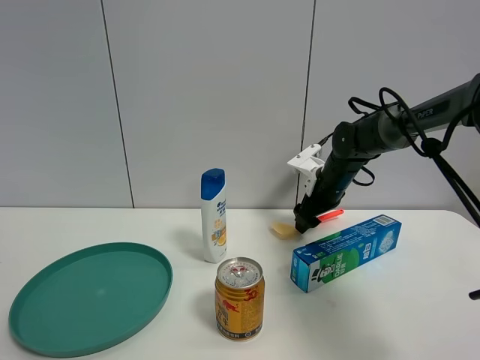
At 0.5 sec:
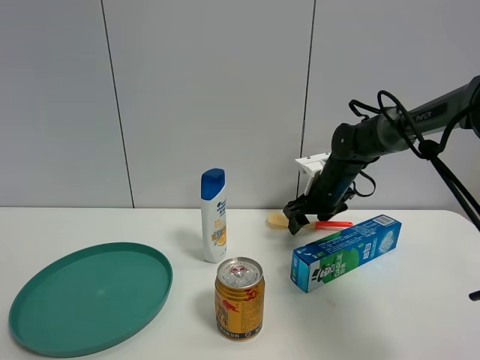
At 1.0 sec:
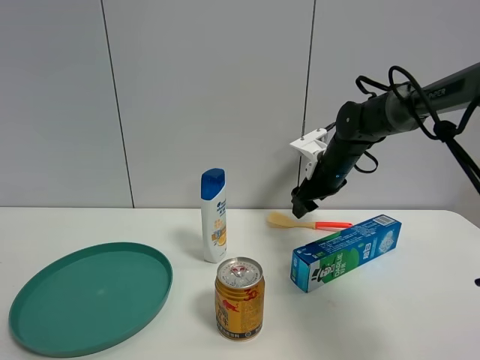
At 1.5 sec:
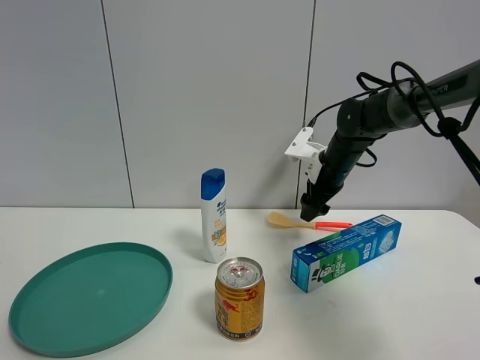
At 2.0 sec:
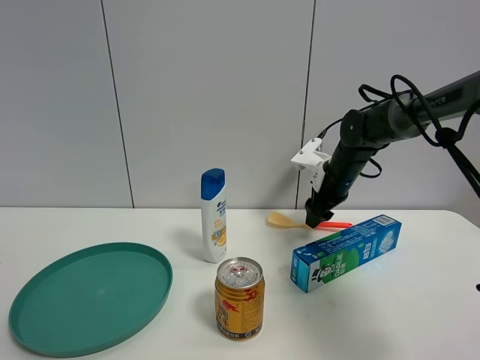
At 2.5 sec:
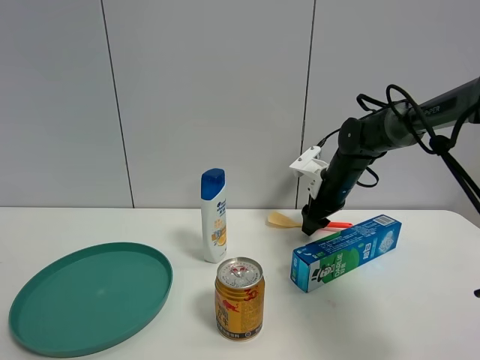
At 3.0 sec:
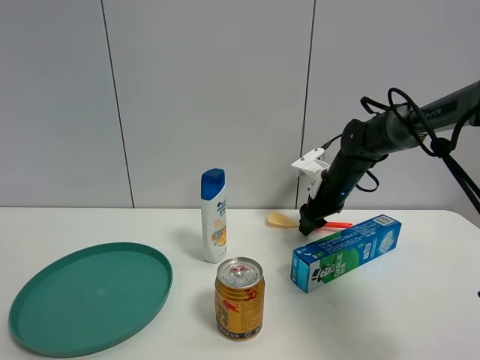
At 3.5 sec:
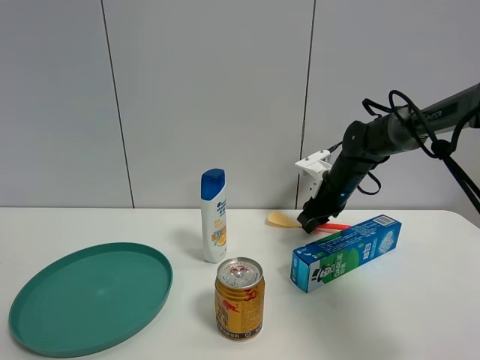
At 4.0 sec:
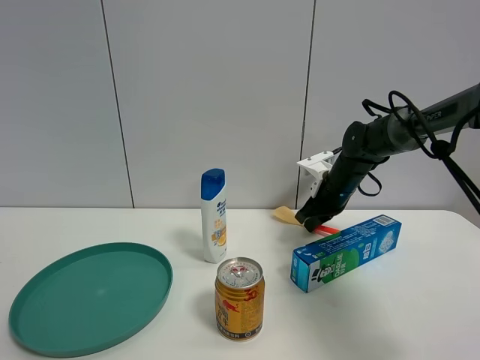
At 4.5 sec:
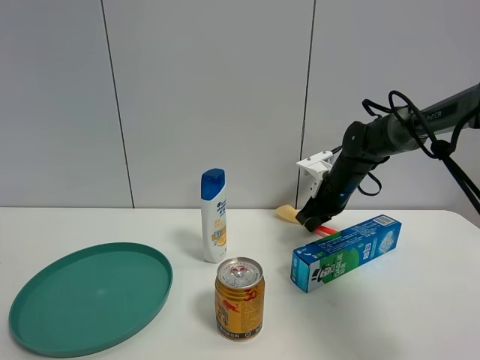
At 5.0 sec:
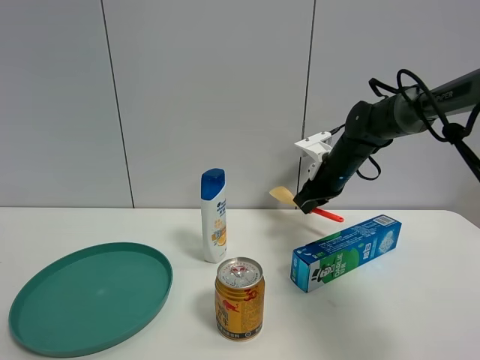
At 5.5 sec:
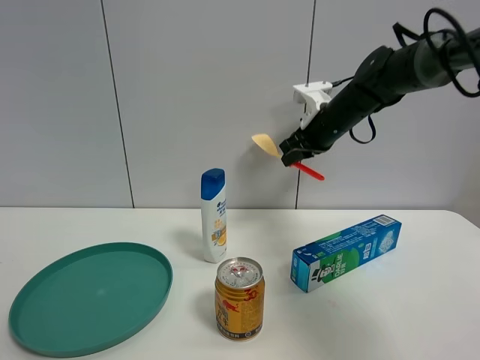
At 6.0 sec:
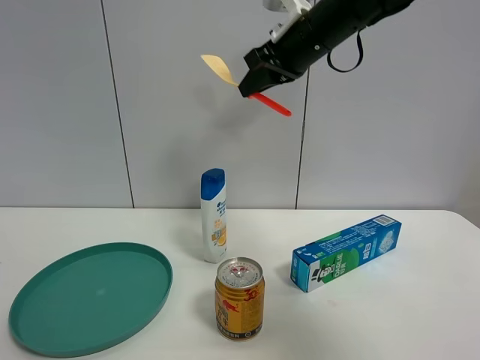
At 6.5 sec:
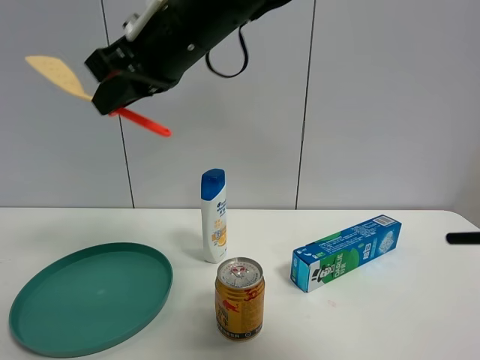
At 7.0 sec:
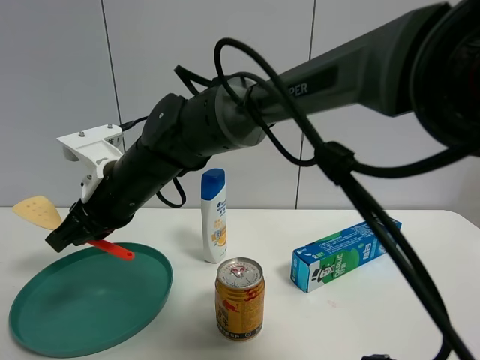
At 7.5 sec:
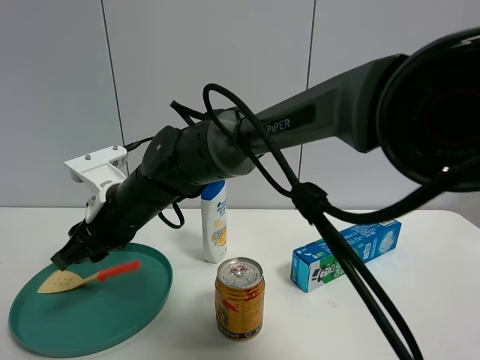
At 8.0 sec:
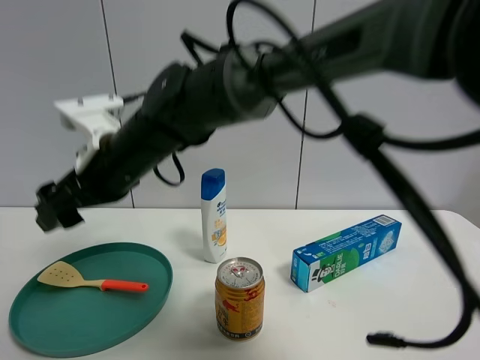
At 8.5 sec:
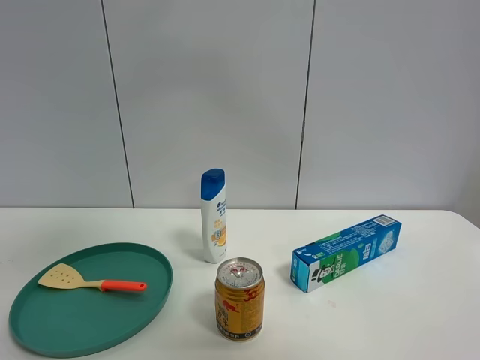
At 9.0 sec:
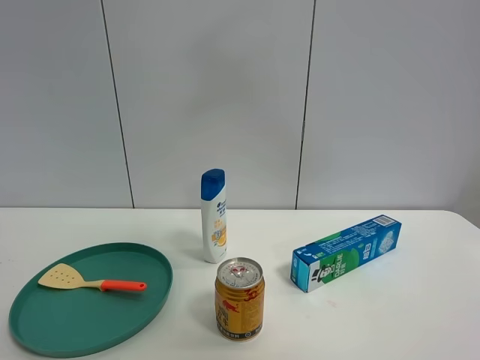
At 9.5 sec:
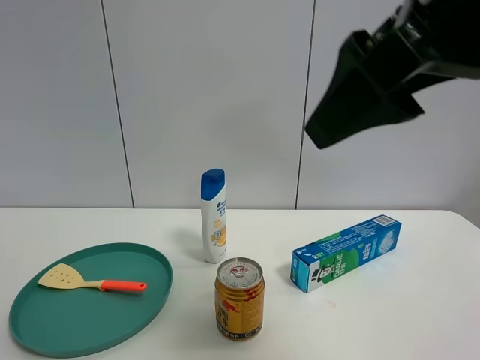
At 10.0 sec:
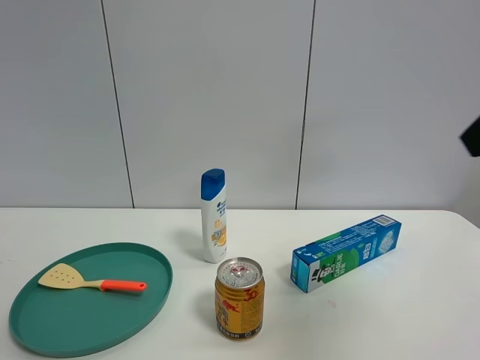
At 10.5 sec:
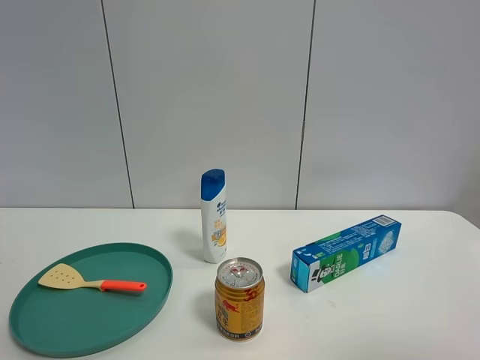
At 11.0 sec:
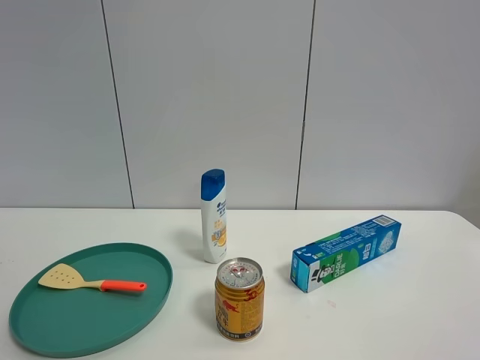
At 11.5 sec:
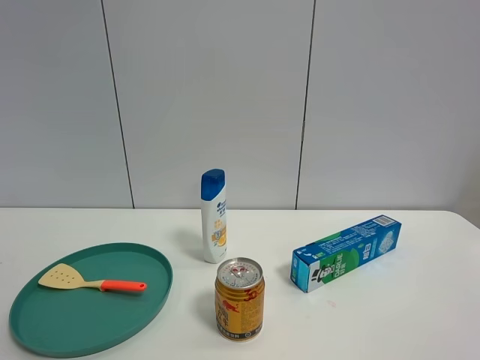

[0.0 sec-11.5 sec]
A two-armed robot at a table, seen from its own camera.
Task of the whole recording: the gripper move the object.
Step, 0.0 sec to 4.0 sec: Grasp the cooking shovel with the right gripper.
Step, 4.5 sec to 8.0 sec: Place the cooking shovel into the green plate with the right gripper.
2.0 sec to 4.0 sec: The right gripper closes its fingers.
4.0 sec to 6.0 sec: The right gripper travels upward by roughly 25 cm.
6.0 sec to 7.5 sec: The right gripper travels to the left and downward by some 30 cm.
7.5 sec to 9.5 sec: The right gripper travels to the right, upward and backward by roughly 40 cm, and opens its fingers.
9.5 sec to 11.5 sec: The right gripper heads backward, to the right and downward, covering about 25 cm.
